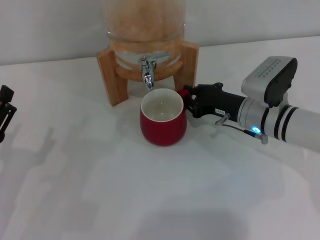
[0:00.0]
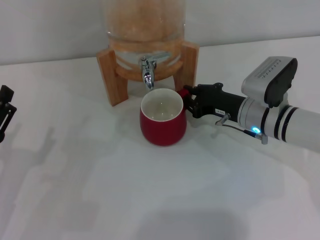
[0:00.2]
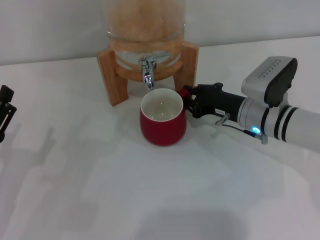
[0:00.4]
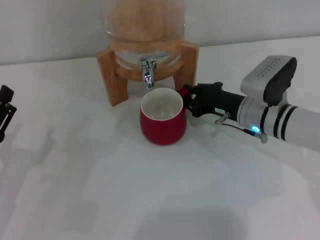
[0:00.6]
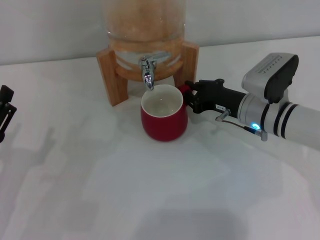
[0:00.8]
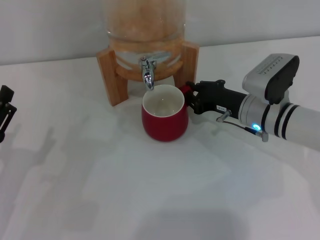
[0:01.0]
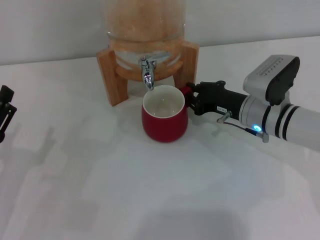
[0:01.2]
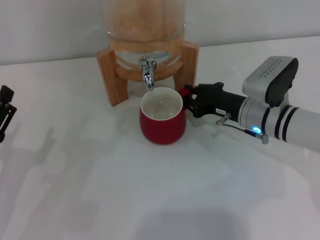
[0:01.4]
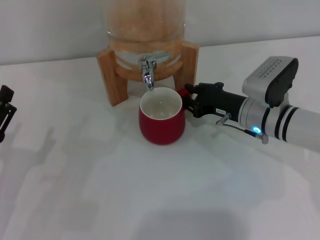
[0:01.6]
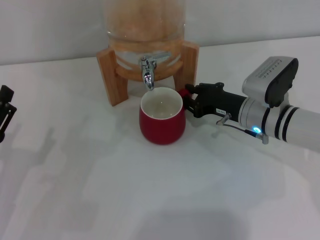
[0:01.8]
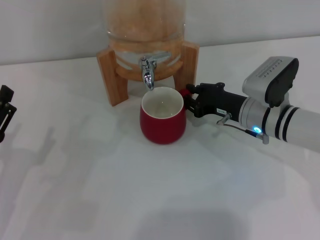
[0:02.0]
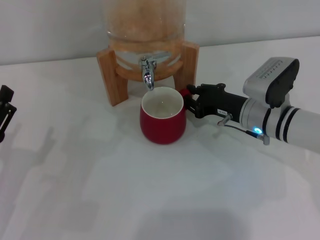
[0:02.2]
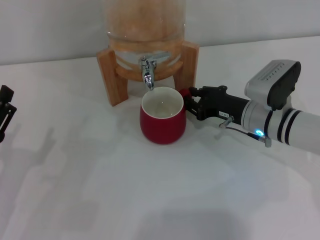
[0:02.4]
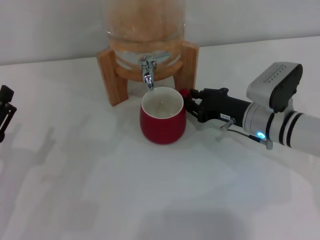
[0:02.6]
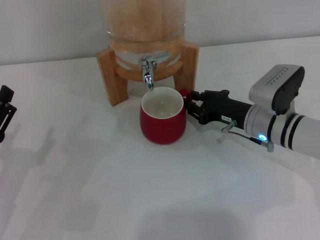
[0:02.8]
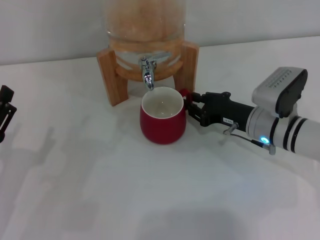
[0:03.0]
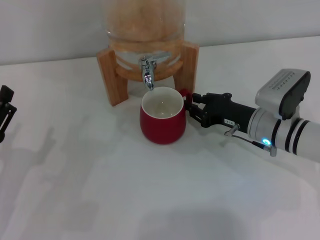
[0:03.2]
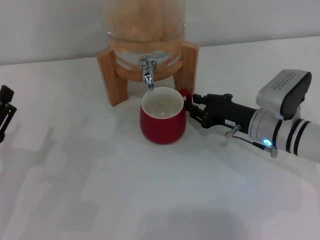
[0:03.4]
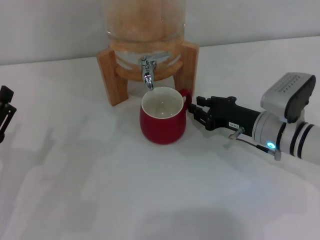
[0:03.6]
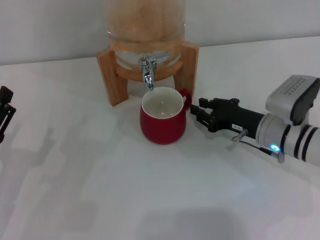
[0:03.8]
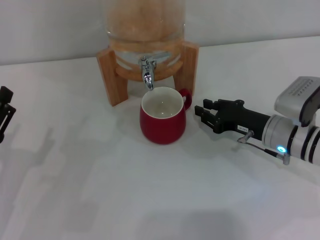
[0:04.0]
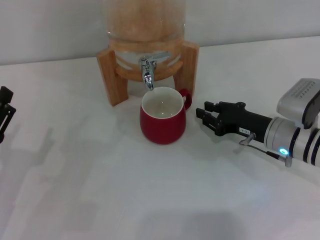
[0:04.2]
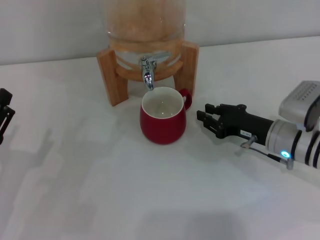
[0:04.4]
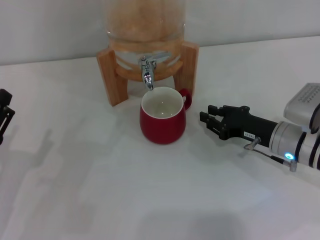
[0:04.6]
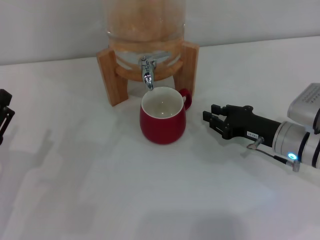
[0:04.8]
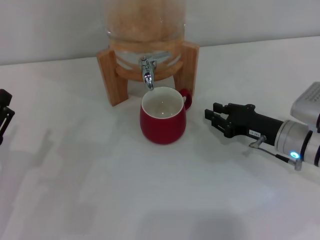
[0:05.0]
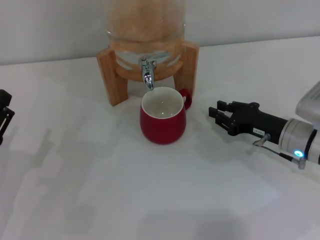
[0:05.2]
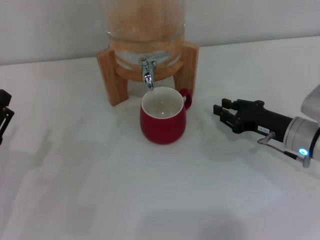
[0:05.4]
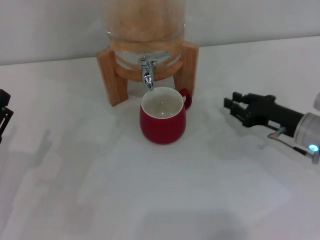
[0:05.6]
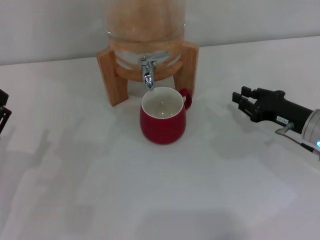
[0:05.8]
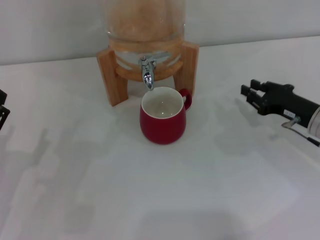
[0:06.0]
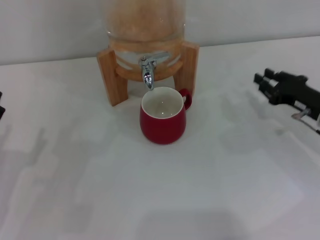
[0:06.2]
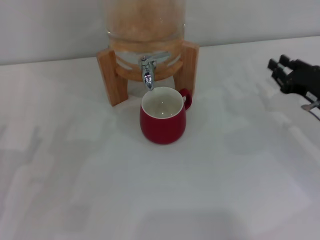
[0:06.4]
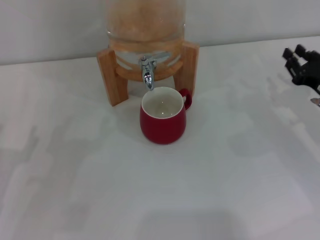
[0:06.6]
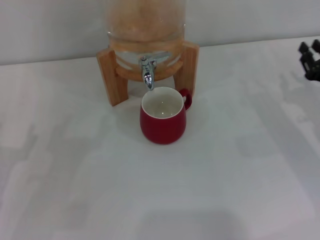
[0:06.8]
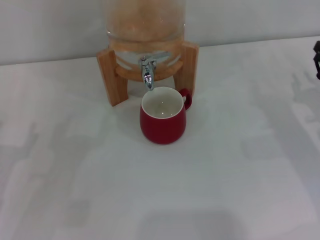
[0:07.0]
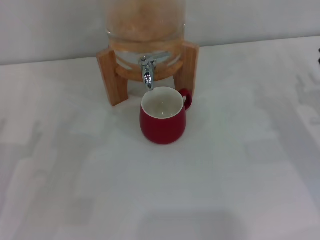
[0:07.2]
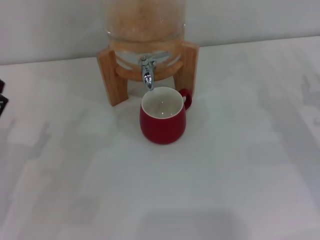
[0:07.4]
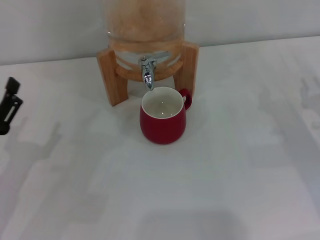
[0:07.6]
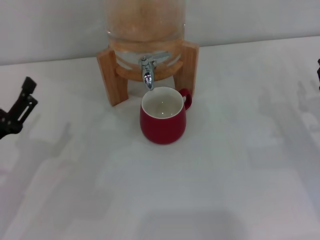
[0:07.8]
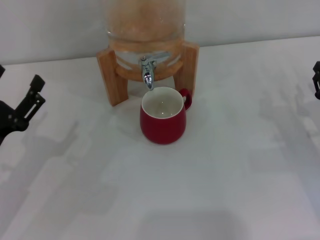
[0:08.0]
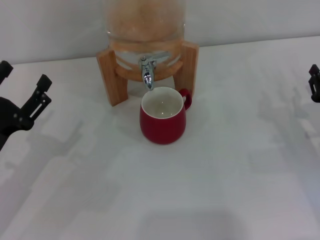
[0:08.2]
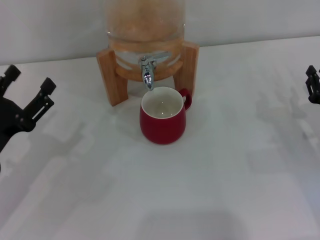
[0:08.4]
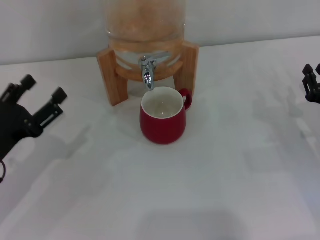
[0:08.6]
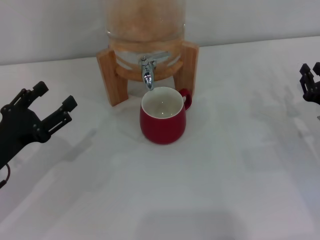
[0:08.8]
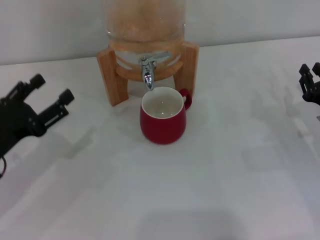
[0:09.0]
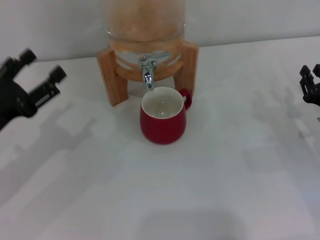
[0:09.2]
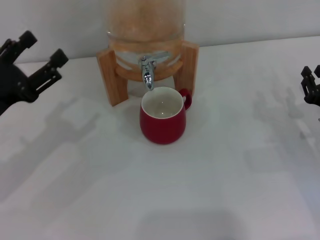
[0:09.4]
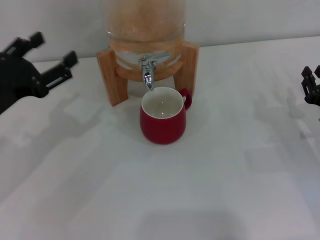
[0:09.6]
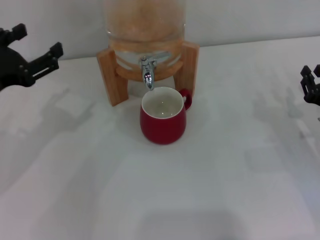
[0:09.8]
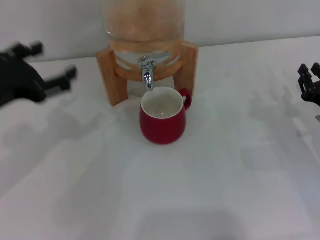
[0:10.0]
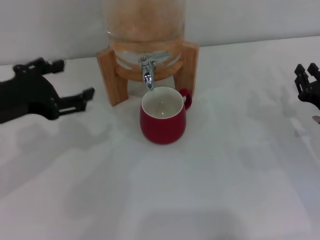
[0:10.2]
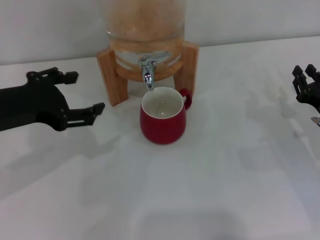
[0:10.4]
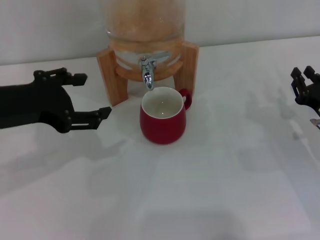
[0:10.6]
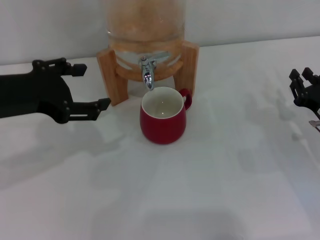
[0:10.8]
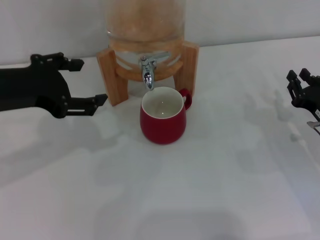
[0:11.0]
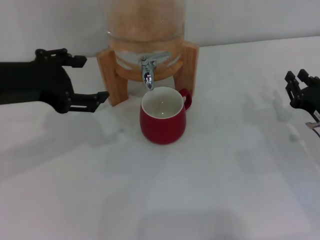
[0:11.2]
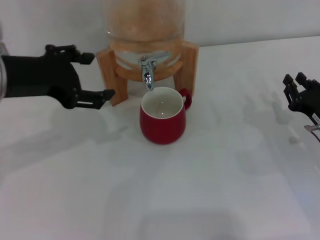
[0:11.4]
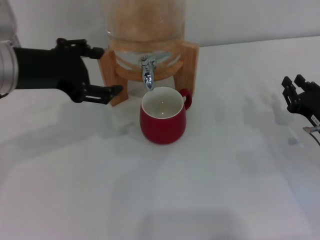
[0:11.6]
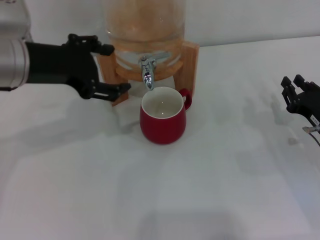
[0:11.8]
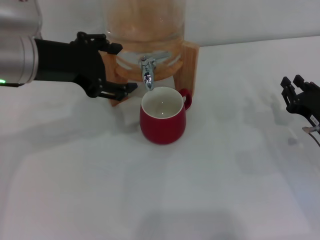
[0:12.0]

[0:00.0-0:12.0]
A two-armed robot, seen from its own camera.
Task of the whole recording: the right gripper pick up the red cup and place it horizontally under the faucet, the left gripper turn on the faucet to fill the cup, and then turn off the faucet.
Step, 0:00.0 to 0:04.2: Move the cup beneath the water dispenser nozzle with the right gripper.
0:00.0 to 0:01.6: Both grippers stay about where they are.
0:01.6 to 0:04.4: There are only small adjustments of the grippers.
0:04.4 to 0:06.0: The right gripper is displaced to the right by approximately 5 cm.
0:06.0 to 0:07.6: The right gripper shifts by about 5 cm.
0:09.0 to 0:10.4: The left gripper shifts about 10 cm upward.
0:10.4 to 0:12.0: The left gripper is displaced forward and to the right by about 10 cm.

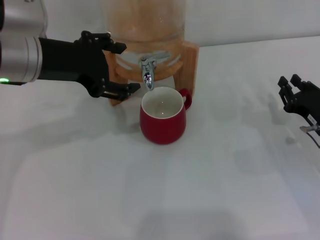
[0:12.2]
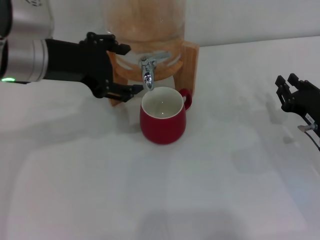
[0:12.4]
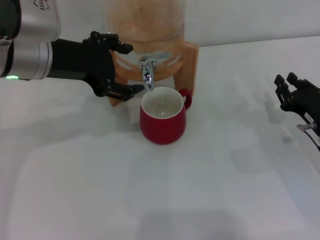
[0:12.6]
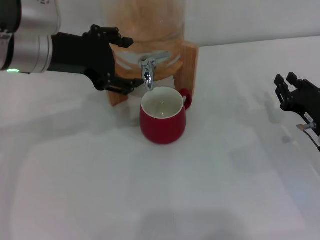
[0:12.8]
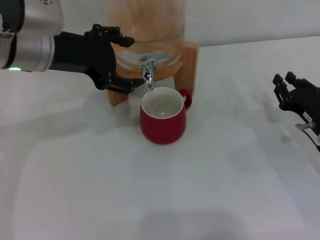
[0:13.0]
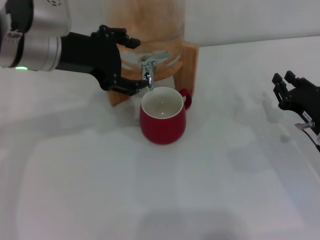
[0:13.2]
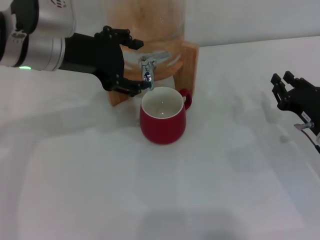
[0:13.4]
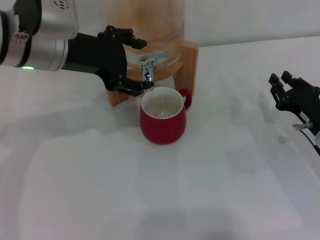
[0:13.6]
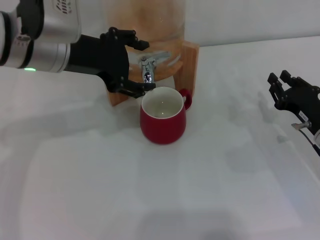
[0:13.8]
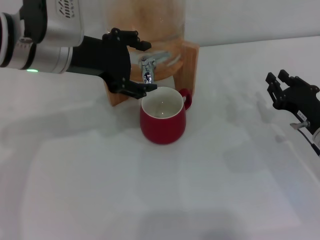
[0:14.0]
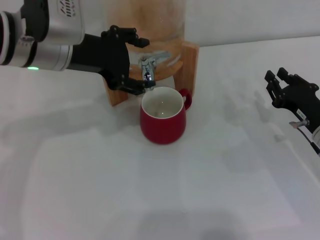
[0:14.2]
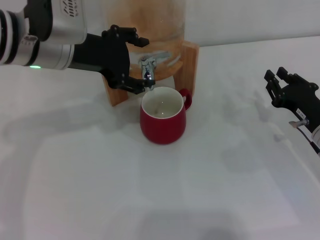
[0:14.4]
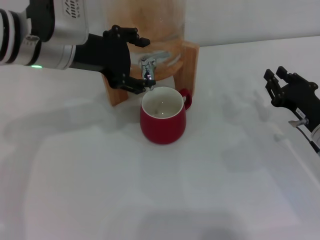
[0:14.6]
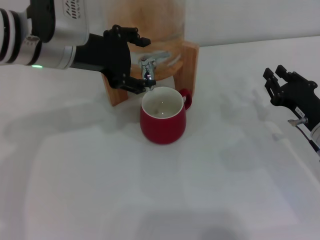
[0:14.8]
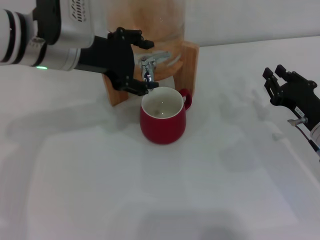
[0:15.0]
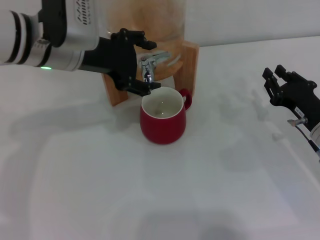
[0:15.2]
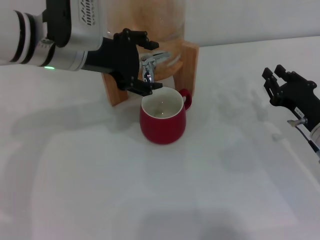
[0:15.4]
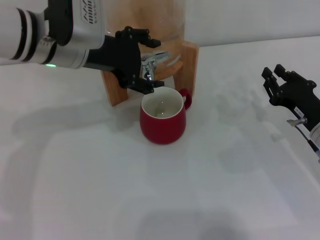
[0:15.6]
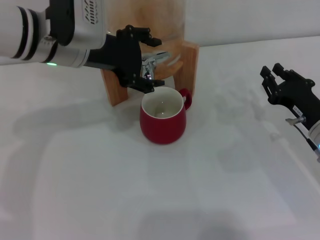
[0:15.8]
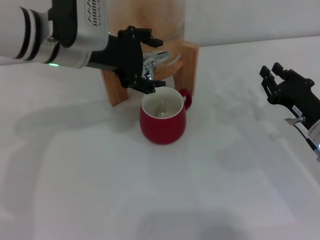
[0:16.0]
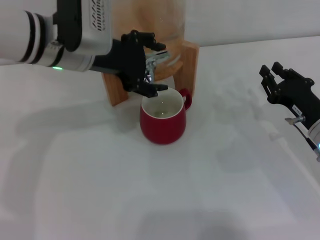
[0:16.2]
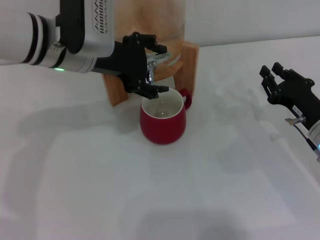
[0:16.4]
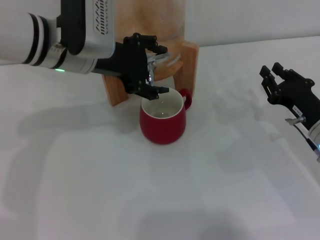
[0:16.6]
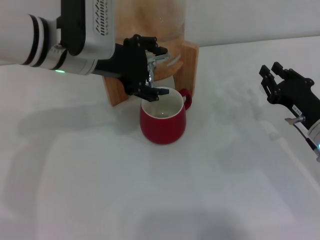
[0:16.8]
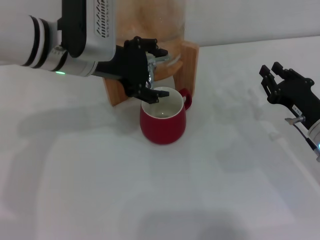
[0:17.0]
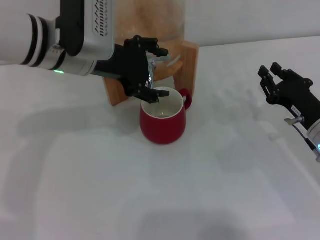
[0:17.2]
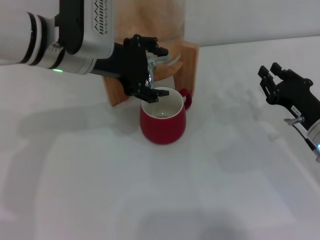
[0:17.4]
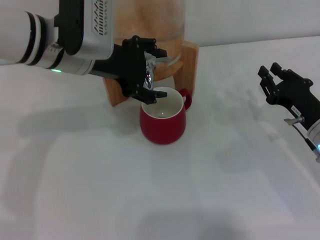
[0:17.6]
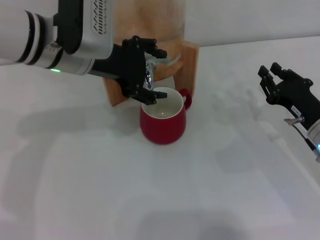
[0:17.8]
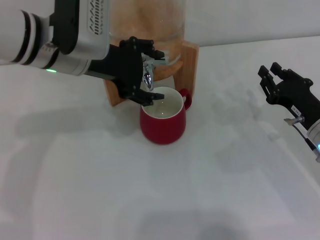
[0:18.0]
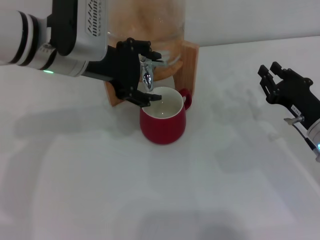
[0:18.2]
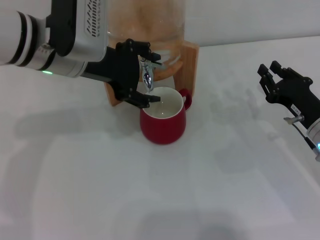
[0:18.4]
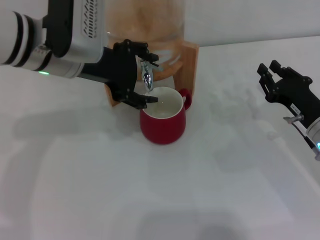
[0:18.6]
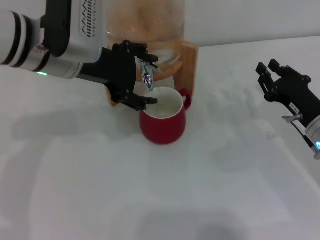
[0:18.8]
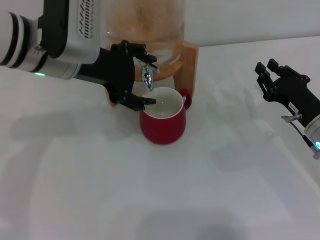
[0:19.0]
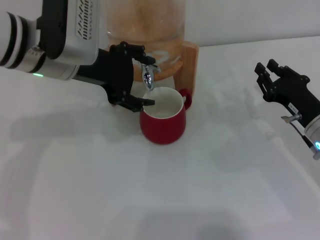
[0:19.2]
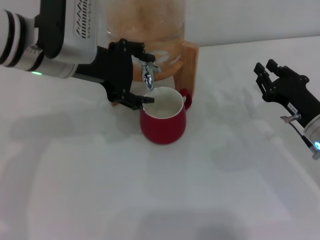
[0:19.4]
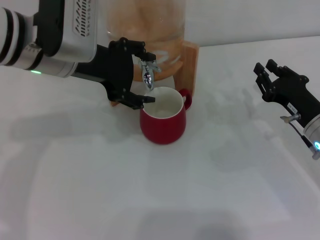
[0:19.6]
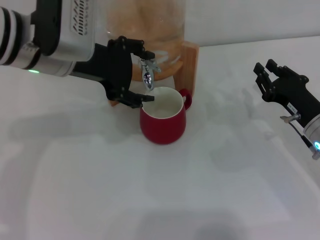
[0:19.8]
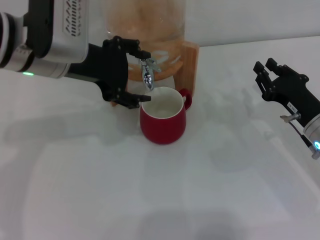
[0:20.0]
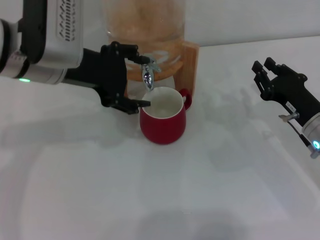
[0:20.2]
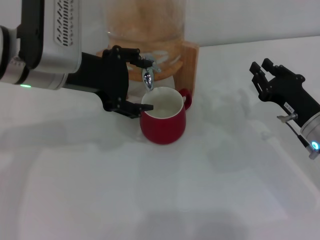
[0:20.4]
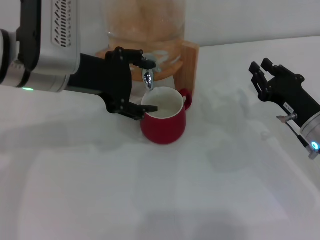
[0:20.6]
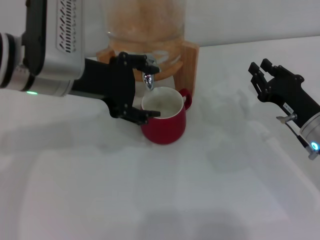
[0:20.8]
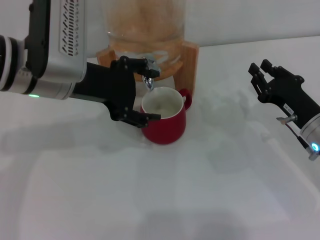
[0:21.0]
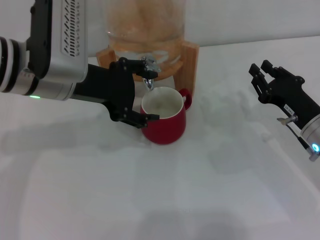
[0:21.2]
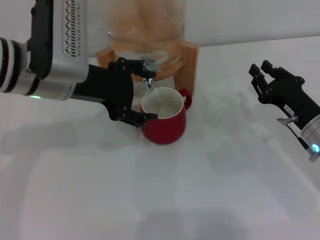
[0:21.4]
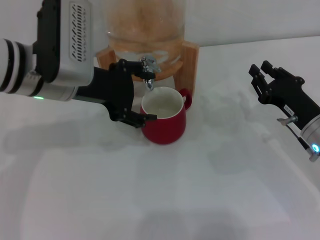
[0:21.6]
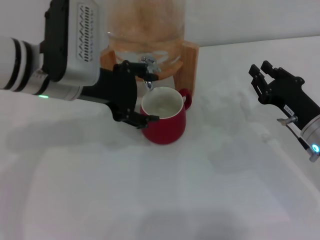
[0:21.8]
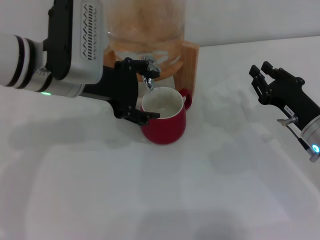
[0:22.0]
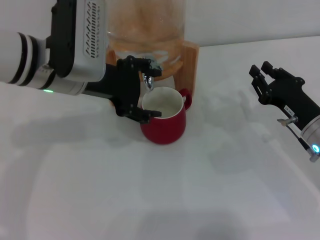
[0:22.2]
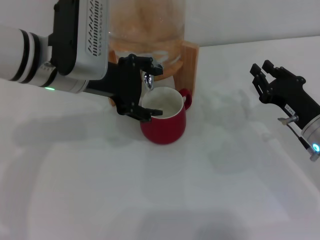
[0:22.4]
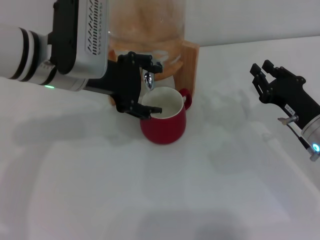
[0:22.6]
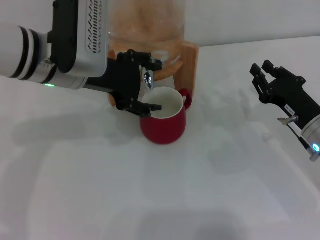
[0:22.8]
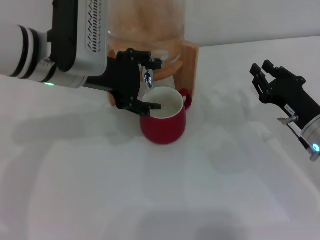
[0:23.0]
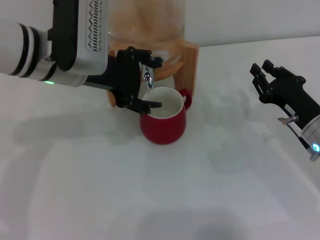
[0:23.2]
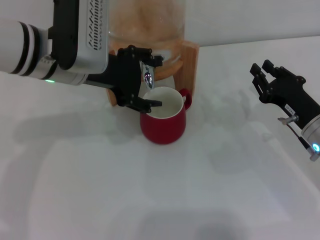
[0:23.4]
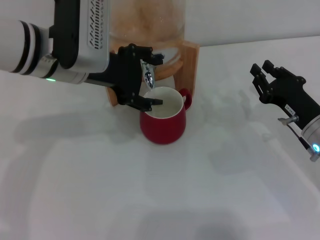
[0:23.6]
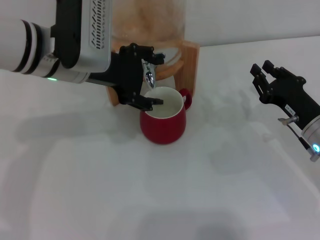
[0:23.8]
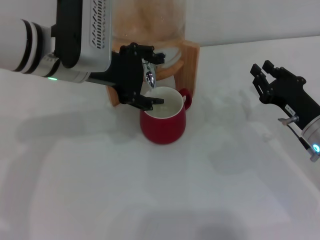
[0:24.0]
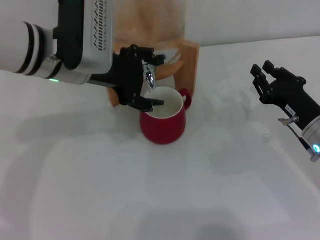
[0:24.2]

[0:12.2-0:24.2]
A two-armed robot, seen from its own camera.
Task of the whole recording: the right gripper pick up the red cup and place it horizontally under the faucet, the left gripper turn on the faucet to fill the cup, and then turn off the faucet.
Step, 0:12.2 to 0:21.6: Open the dispenser valve and fill the cup with water with the left gripper.
0:12.2 to 0:15.2: The grippers move only a little.
0:15.2 to 0:22.6: The grippers stay close to where they were, moving slightly.
0:22.6 to 0:24.2: Both grippers stay about where they are.
